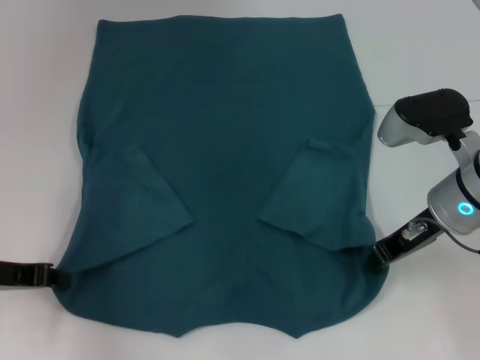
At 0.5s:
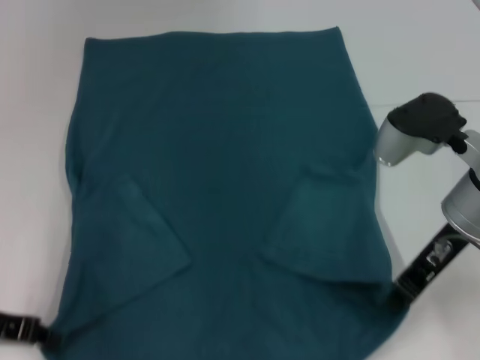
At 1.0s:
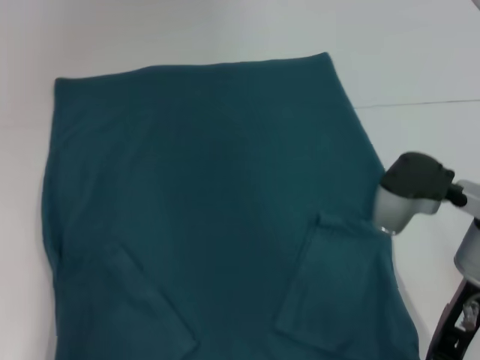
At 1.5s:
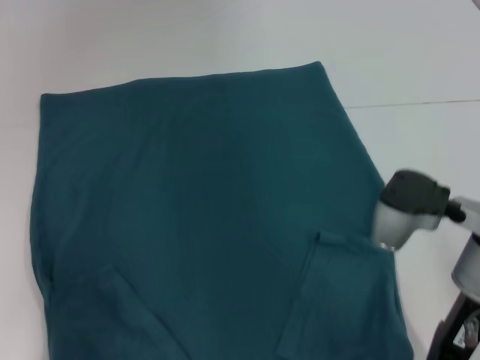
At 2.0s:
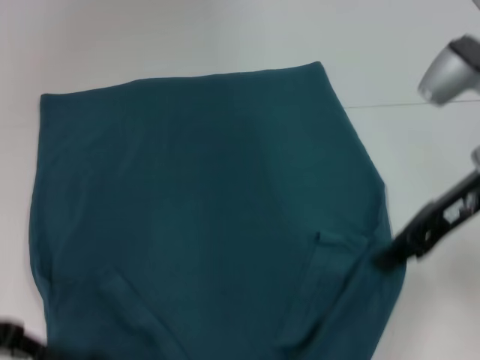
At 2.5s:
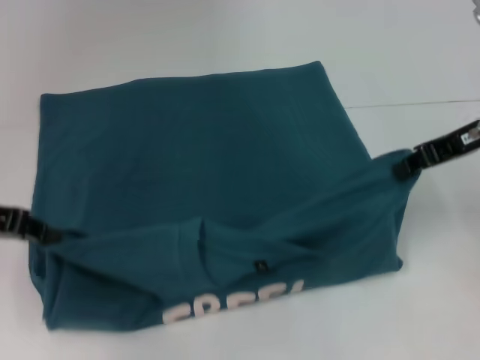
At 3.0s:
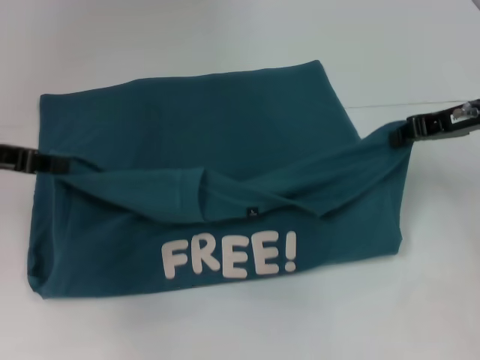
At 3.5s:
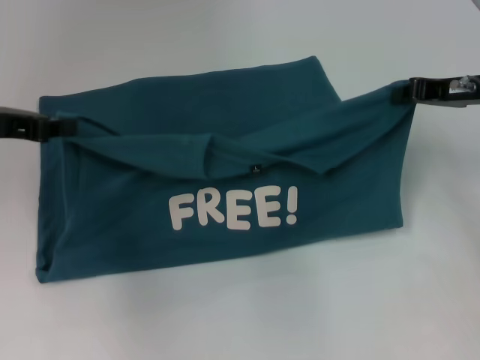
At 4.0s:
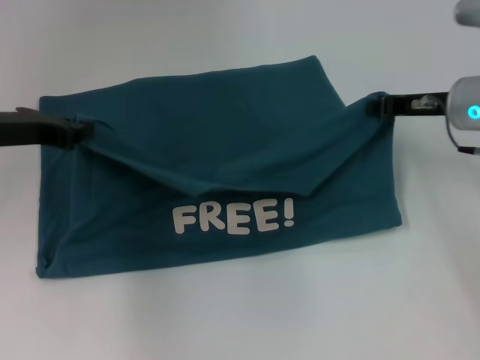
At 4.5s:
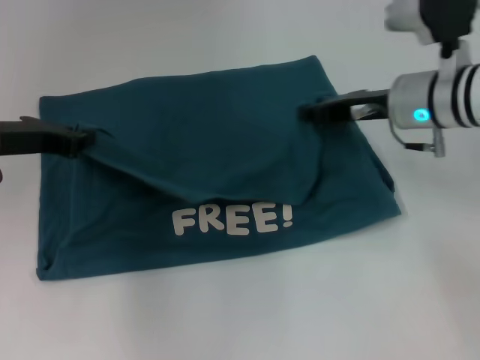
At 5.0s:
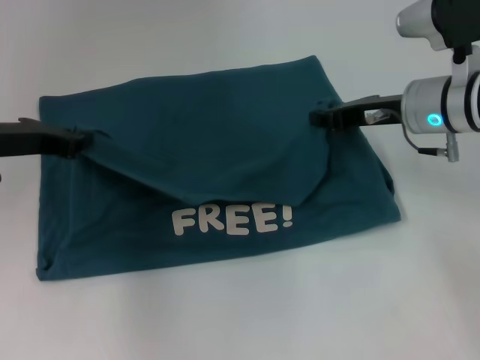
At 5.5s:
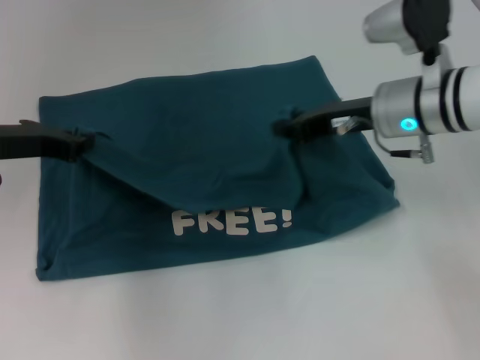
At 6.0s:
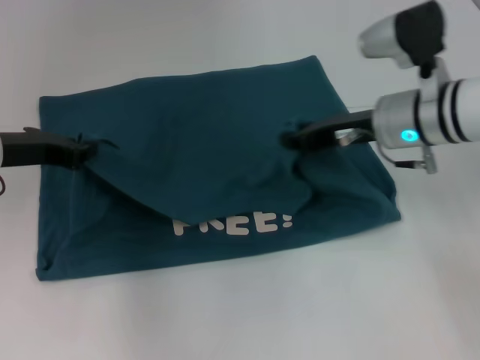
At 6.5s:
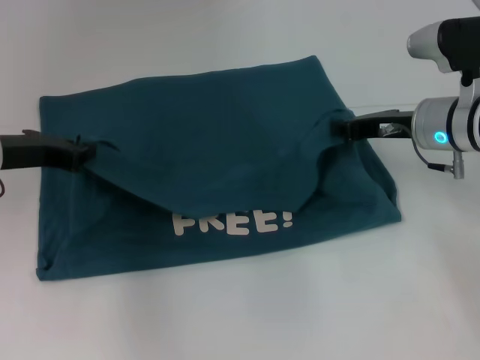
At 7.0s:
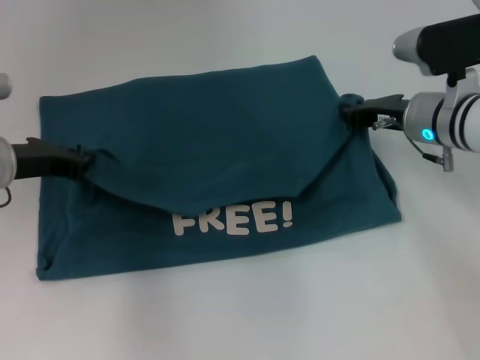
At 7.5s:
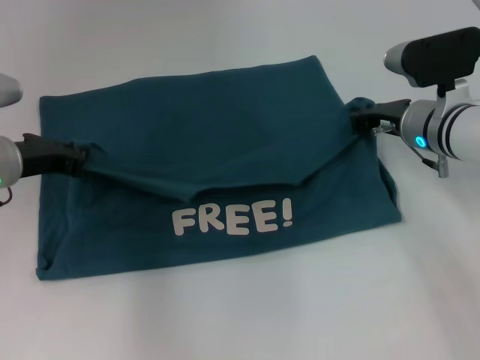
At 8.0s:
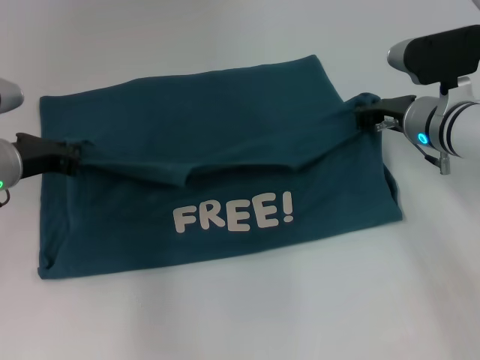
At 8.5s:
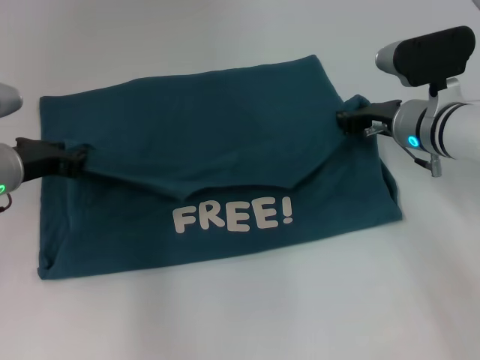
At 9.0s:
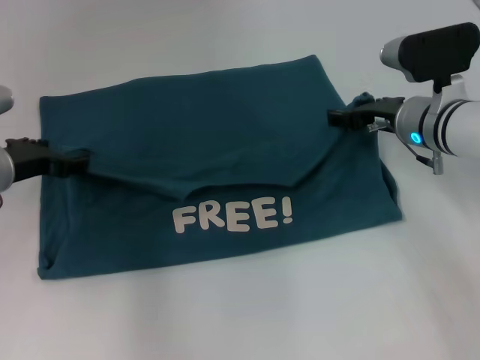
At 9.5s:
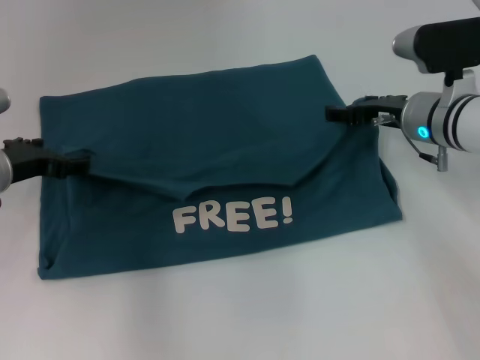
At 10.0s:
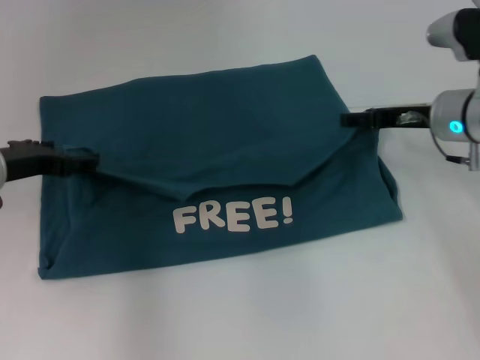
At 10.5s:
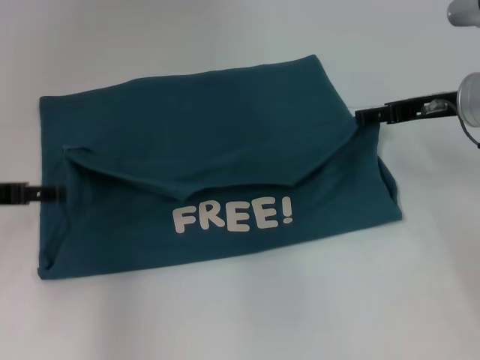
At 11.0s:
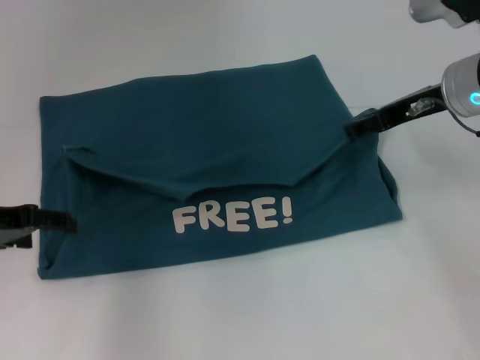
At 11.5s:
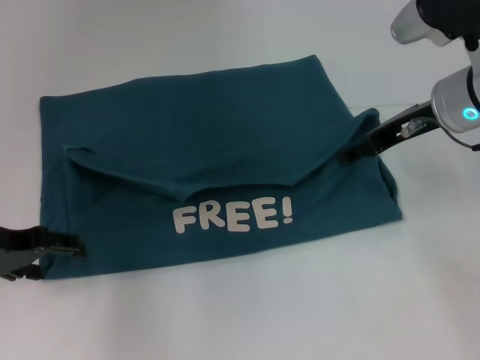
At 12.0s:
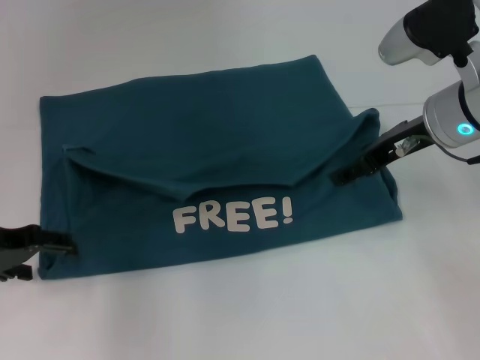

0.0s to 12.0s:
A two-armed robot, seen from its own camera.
Step, 0.5s to 10.0s: Fold the clothes to the left.
Step, 0.5s to 10.0s: Fold the clothes to the right.
0.0s to 2.0s: The left gripper shifts by approximately 5 cm; the right gripper goes about 10 cm upward.
2.0s to 4.0s: The right gripper is displaced forward and downward by about 10 cm, while the left gripper shifts some 10 cm forward.
4.0s to 6.0s: The right gripper heads to the left, covering roughly 5 cm.
6.0s to 8.0s: The right gripper shifts by roughly 5 cm.
8.0s to 10.0s: The left gripper opens its fingers, while the right gripper opens.
10.0s to 12.0s: The left gripper moves approximately 5 cm. The right gripper goes about 5 cm upward.

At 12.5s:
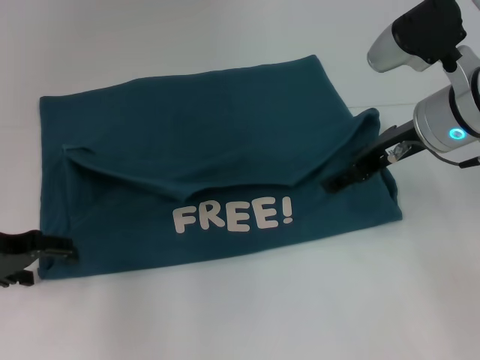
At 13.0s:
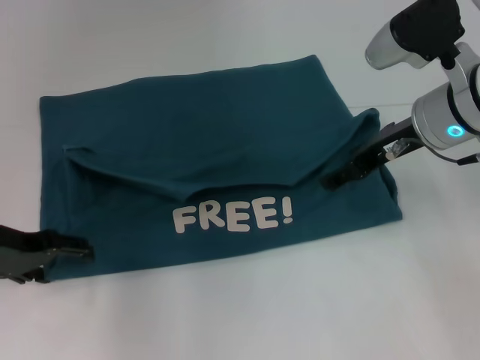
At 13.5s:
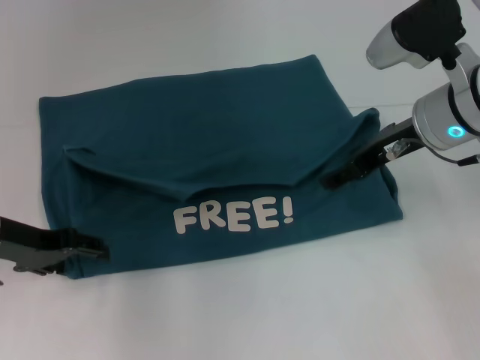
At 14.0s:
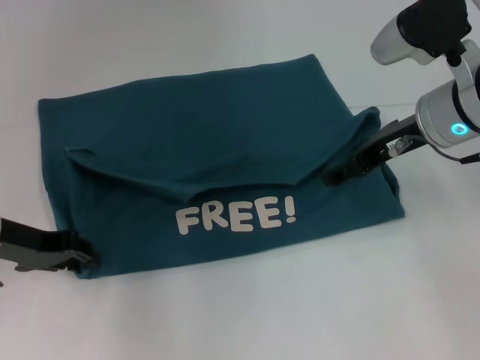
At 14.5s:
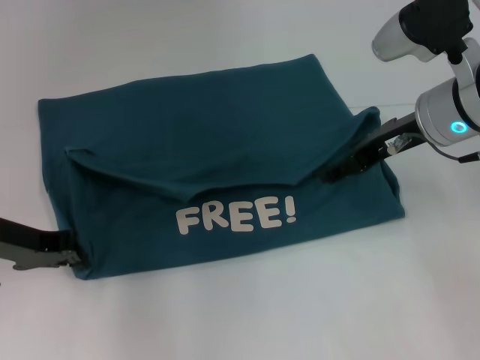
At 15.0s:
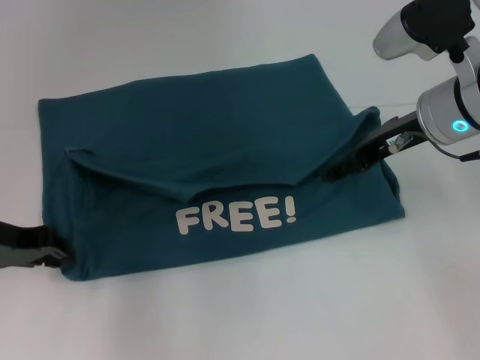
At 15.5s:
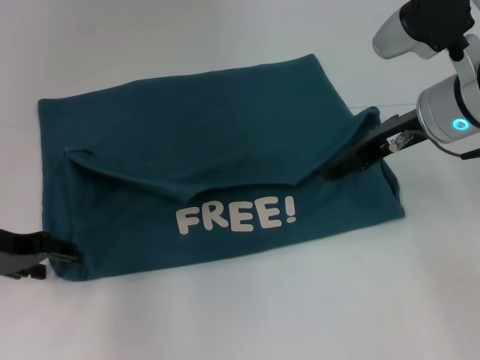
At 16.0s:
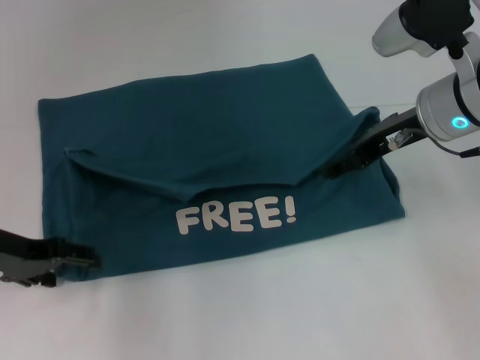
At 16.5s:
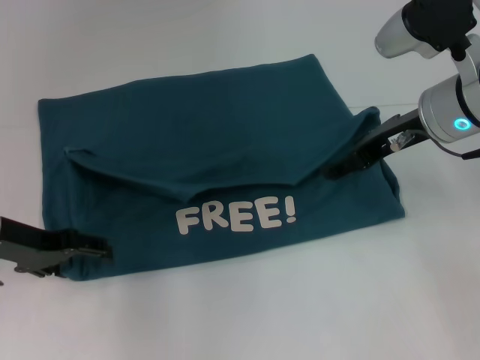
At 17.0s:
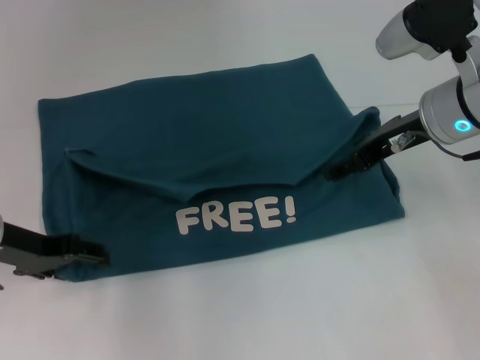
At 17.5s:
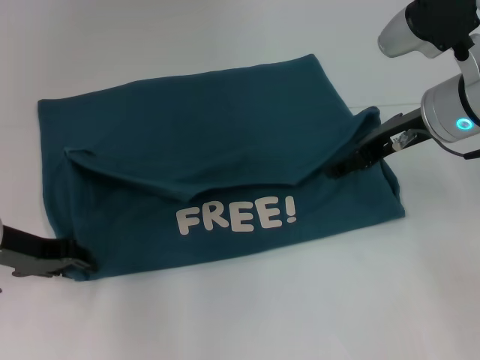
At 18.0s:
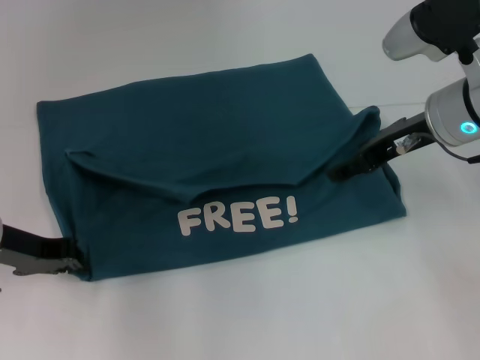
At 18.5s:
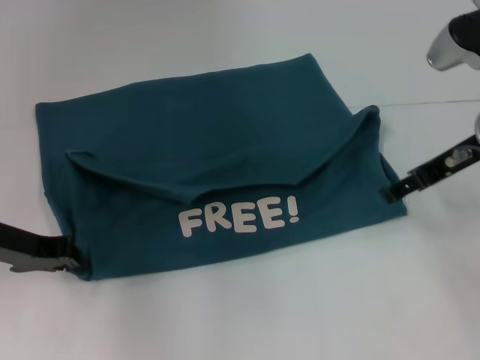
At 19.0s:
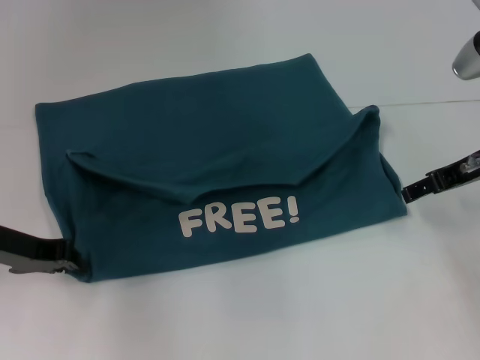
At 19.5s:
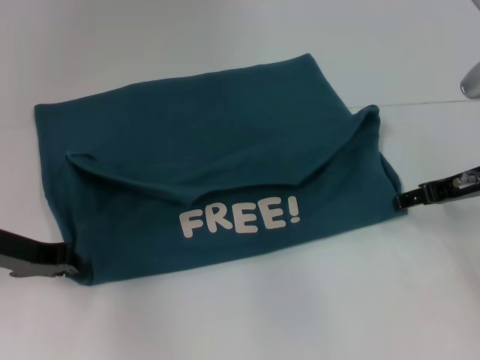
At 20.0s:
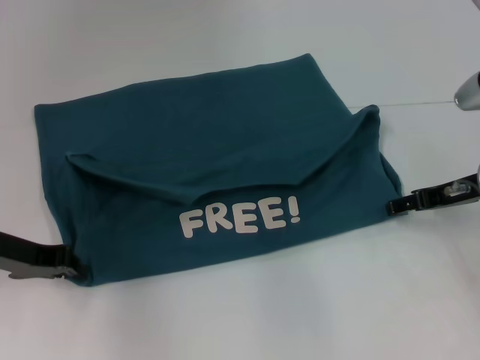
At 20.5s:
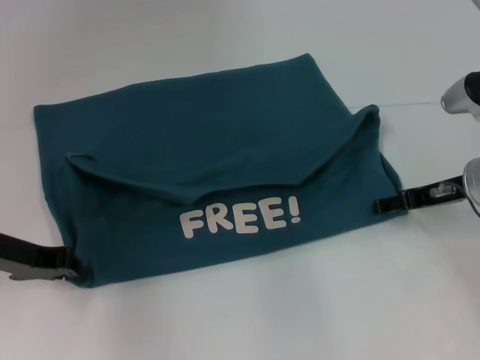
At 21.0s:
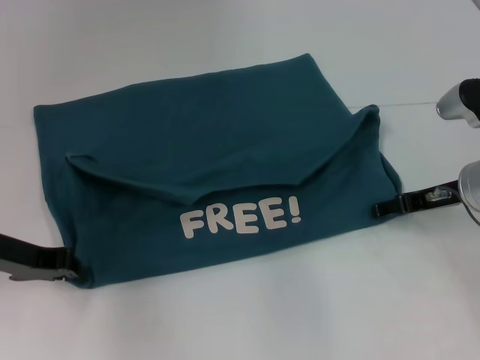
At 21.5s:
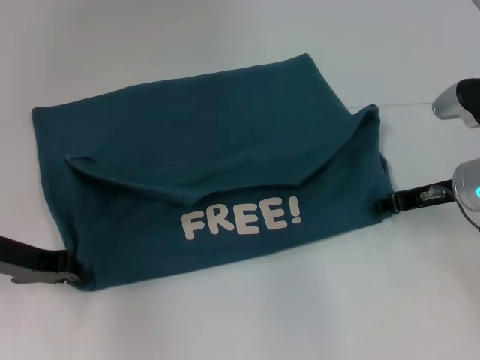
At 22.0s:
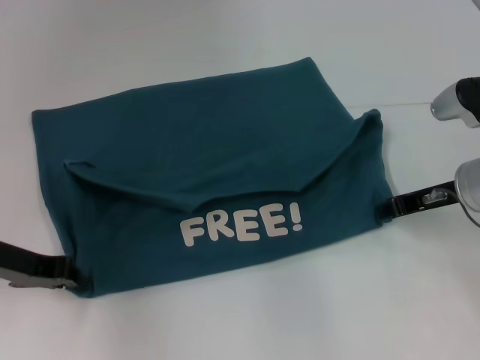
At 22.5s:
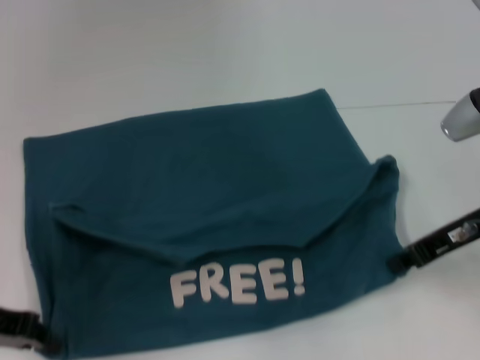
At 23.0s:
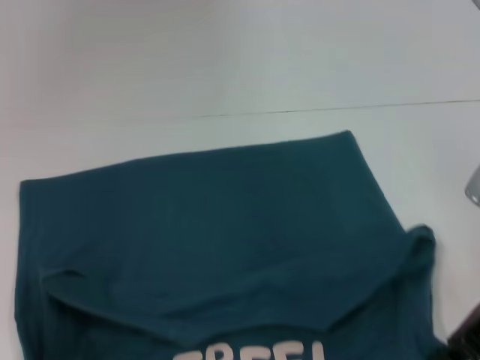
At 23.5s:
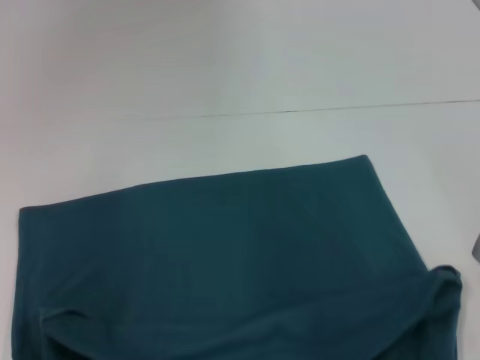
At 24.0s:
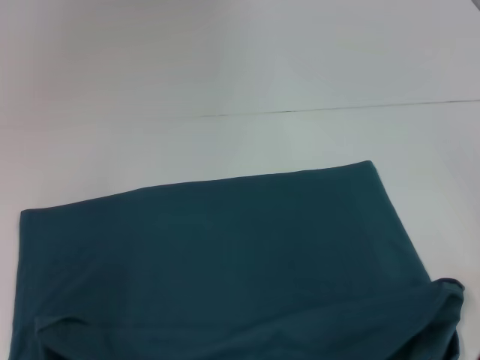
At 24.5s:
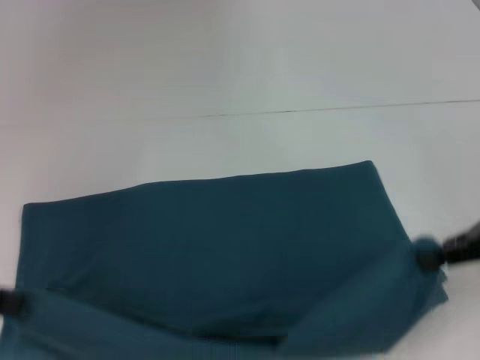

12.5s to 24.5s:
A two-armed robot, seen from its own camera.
Step, 12.5s to 23.5s: Pull the clothes with your left hand.
Step, 12.5s to 23.5s: Pull the clothes with your right hand.
12.5s to 14.5s: The left gripper closes its fingers.
14.5s to 16.5s: The left gripper opens up.
16.5s to 18.5s: The left gripper closes up.
18.5s to 20.5s: The right gripper is displaced downward by about 10 cm.
20.5s to 22.5s: The left gripper ends up approximately 5 cm from where it was. Meanwhile the right gripper shifts by some 5 cm, and closes up.
22.5s to 24.5s: The left gripper goes roughly 5 cm upward, while the right gripper goes some 5 cm to the right.

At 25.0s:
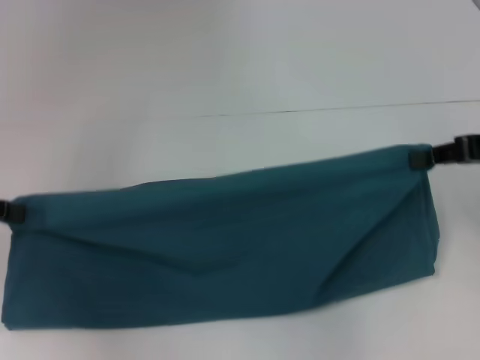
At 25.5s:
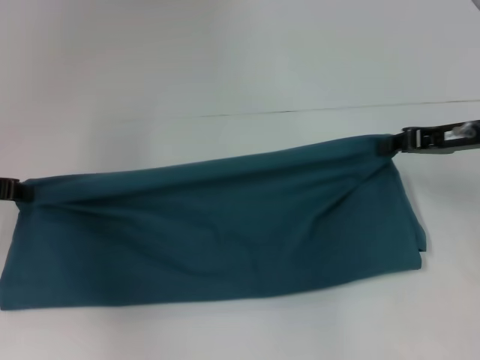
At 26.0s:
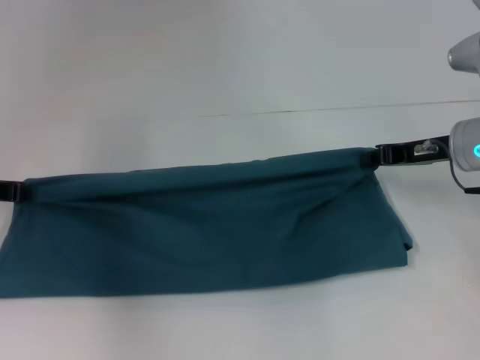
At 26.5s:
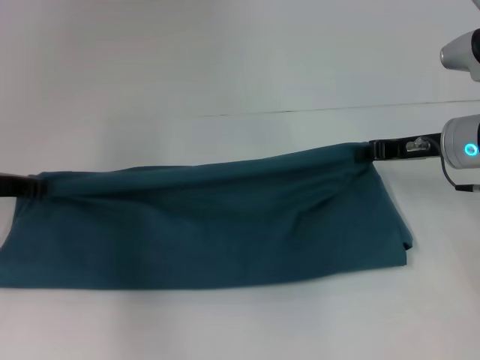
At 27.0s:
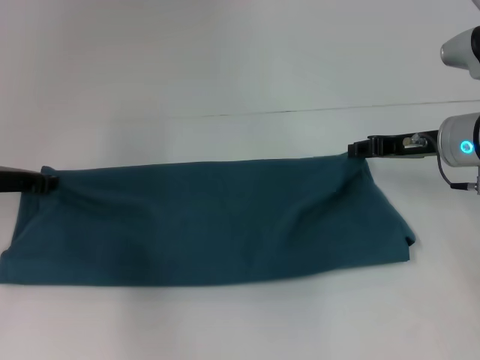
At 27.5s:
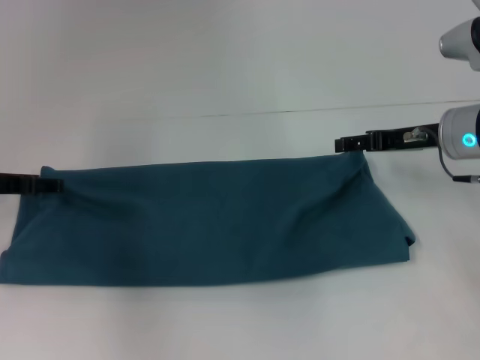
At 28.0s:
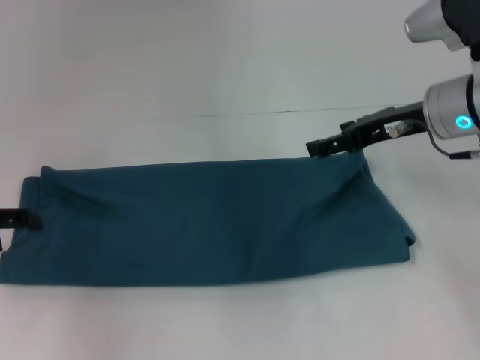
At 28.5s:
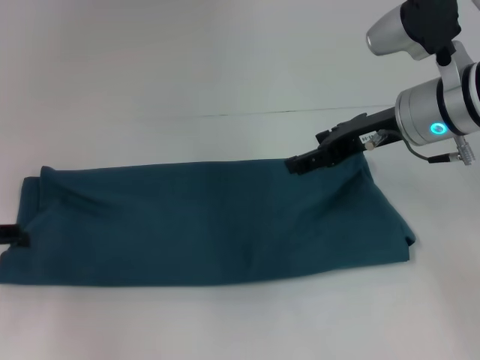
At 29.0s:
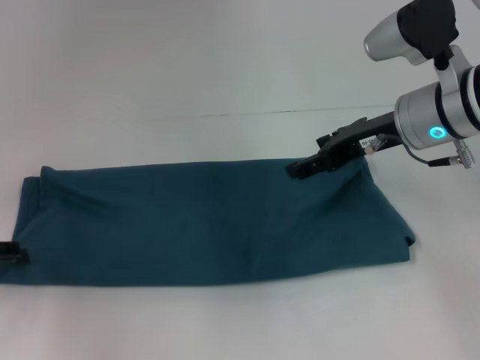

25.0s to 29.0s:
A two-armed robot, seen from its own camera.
Step, 25.0s to 27.0s: Fold the clothes to the left.
Step, 25.0s to 27.0s: Fold the clothes to the right.
25.0s to 27.0s: The right gripper goes approximately 10 cm downward, to the left and forward. The left gripper goes some 10 cm downward, to the right and forward.
27.0s to 29.0s: The left gripper shifts roughly 10 cm backward and to the left, and opens its fingers, while the right gripper travels to the left and upward by about 10 cm, and opens.
